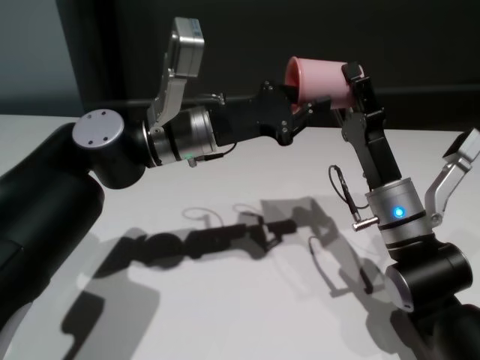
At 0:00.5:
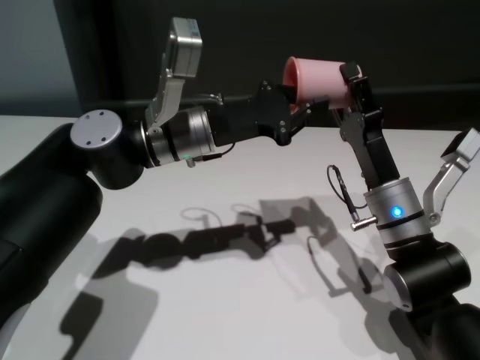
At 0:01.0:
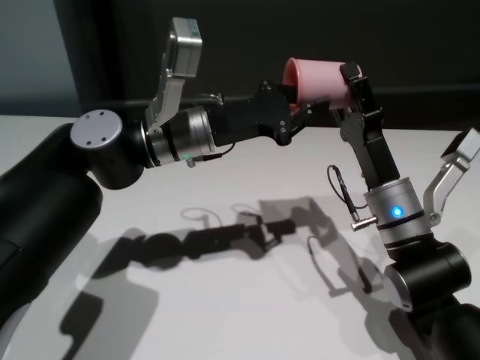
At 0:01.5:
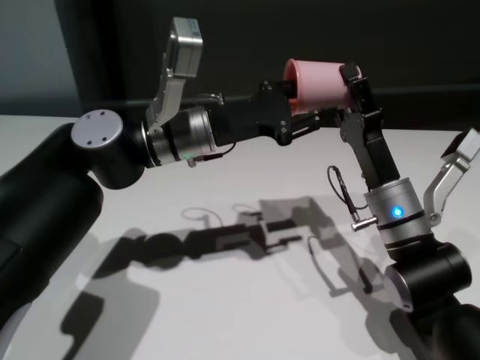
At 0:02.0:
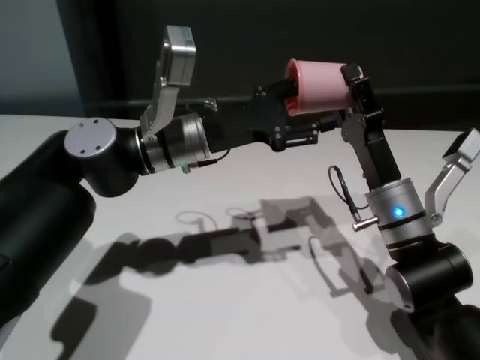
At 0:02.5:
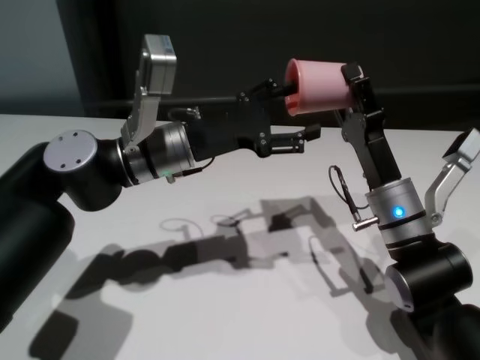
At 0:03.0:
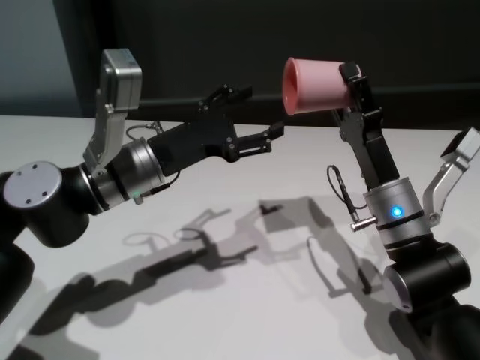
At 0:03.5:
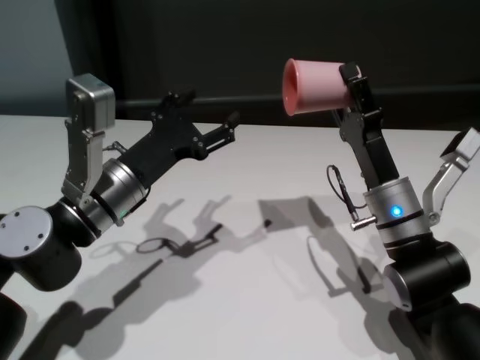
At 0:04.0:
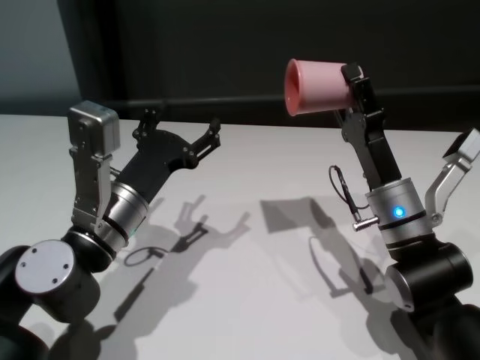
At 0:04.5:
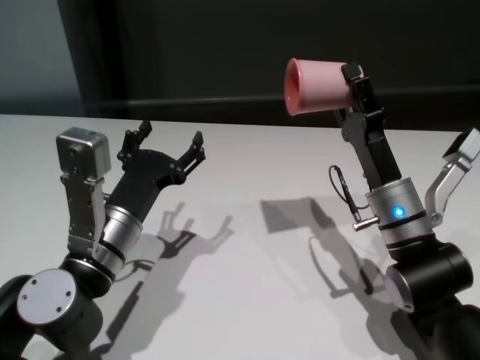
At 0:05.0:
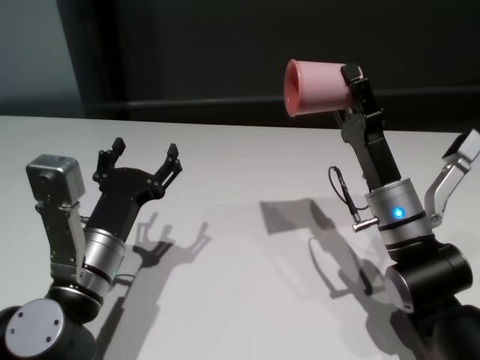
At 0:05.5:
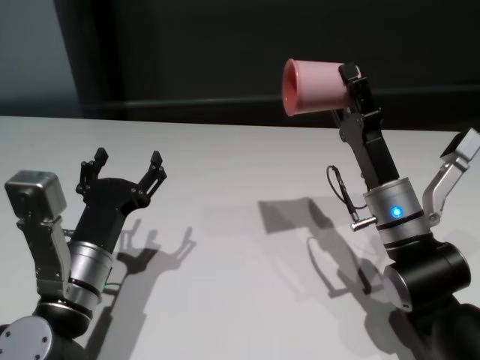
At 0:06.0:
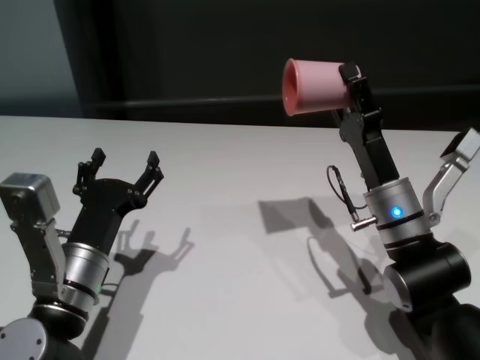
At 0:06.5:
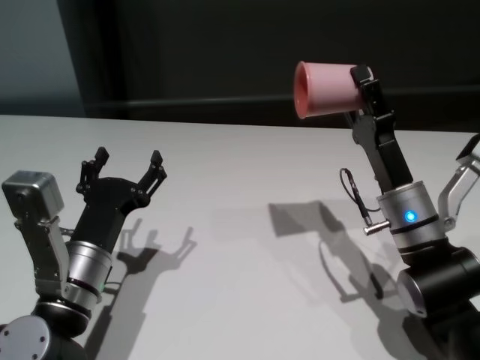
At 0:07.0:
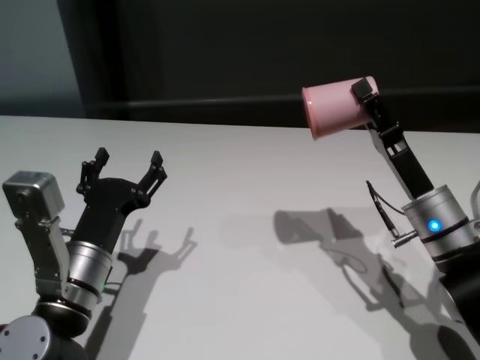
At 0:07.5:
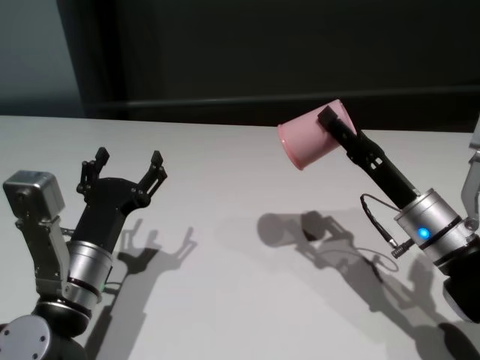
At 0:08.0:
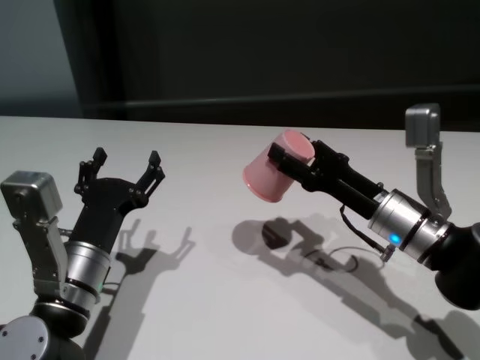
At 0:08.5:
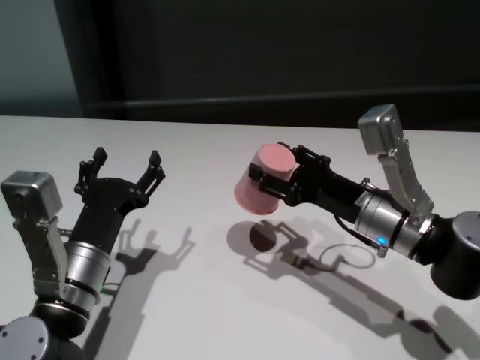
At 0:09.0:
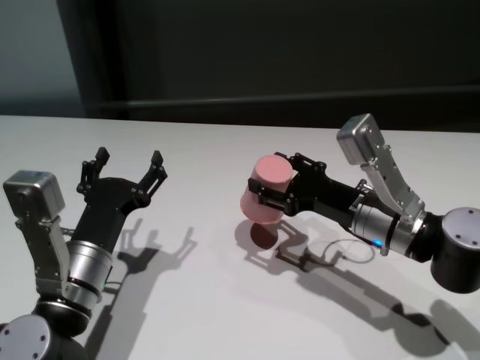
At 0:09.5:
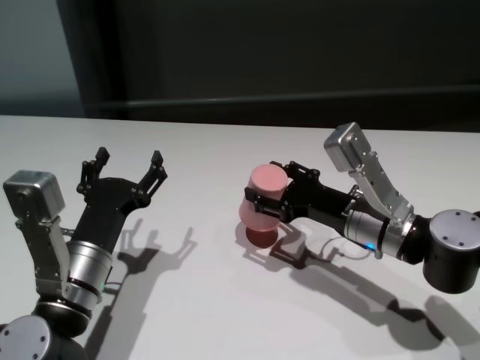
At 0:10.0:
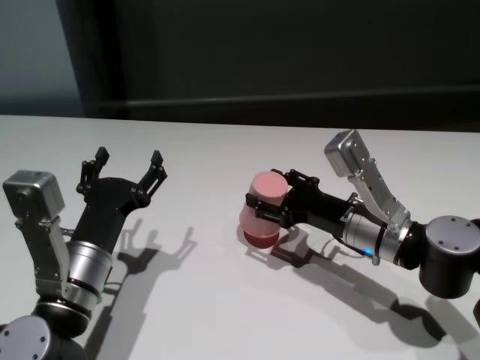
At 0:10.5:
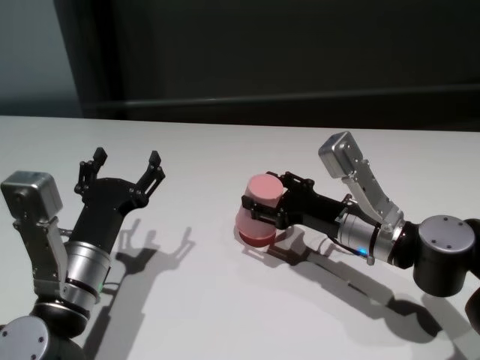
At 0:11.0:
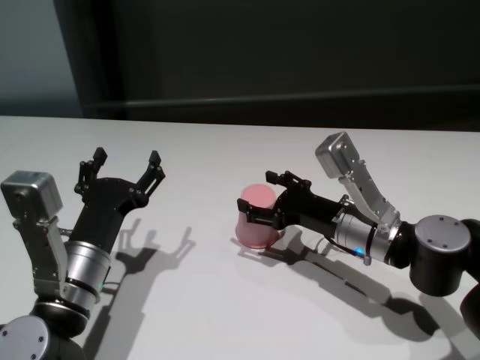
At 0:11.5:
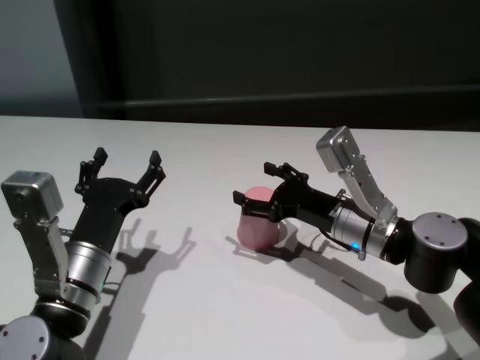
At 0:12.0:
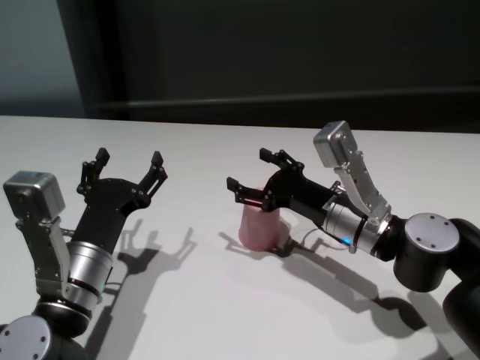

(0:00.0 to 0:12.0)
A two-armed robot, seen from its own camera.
Task of the whole recording: On the white table pick up the cup with one hand and transfer it to the other hand before turning it over.
Step, 0:00.0 - 0:03.0: Pass the cup to the right gripper.
Step, 0:03.5 - 0:11.5: Place the cup on the table with right gripper.
